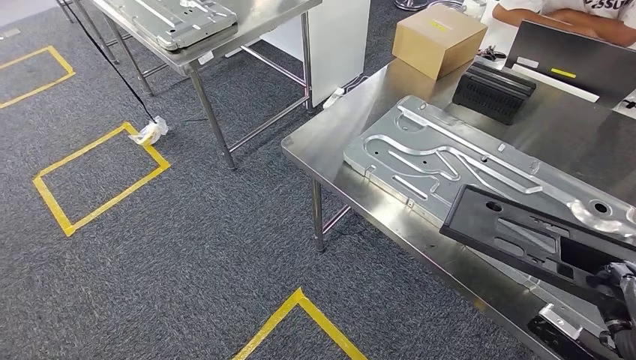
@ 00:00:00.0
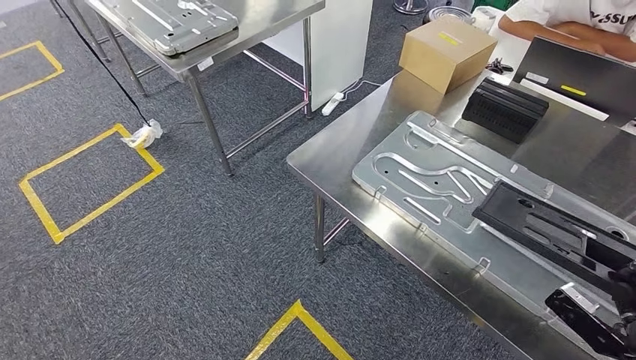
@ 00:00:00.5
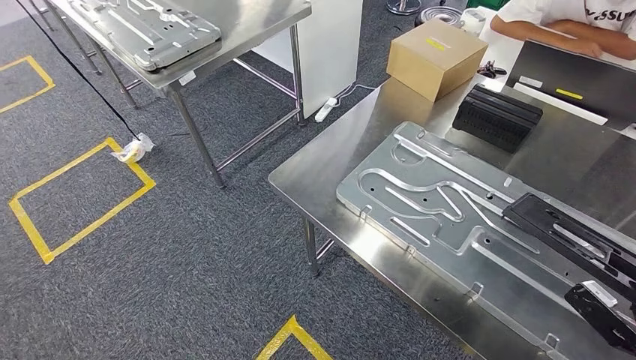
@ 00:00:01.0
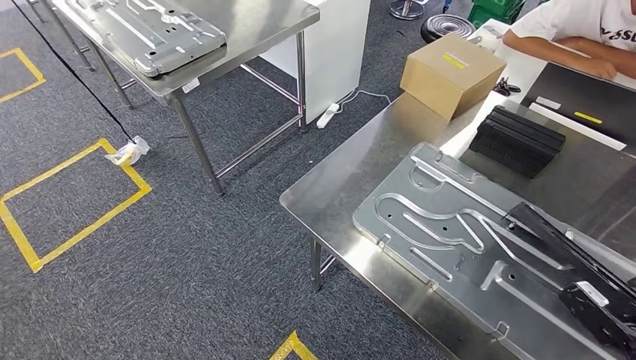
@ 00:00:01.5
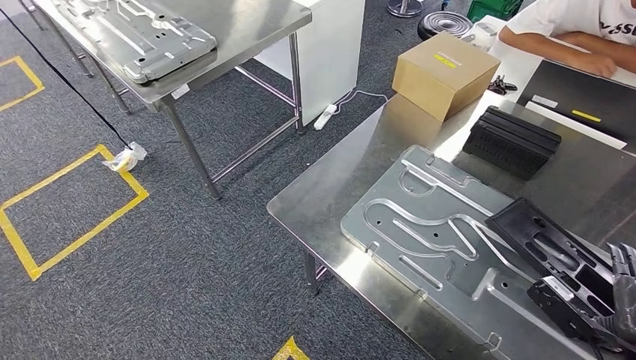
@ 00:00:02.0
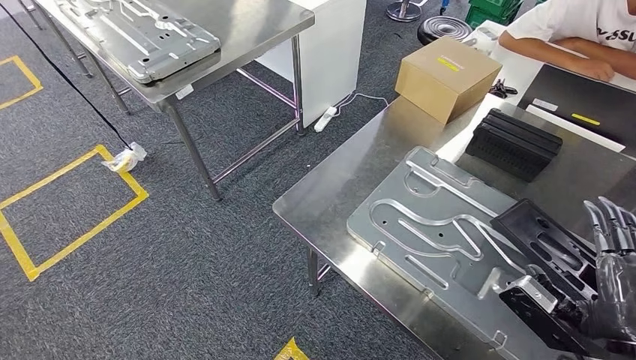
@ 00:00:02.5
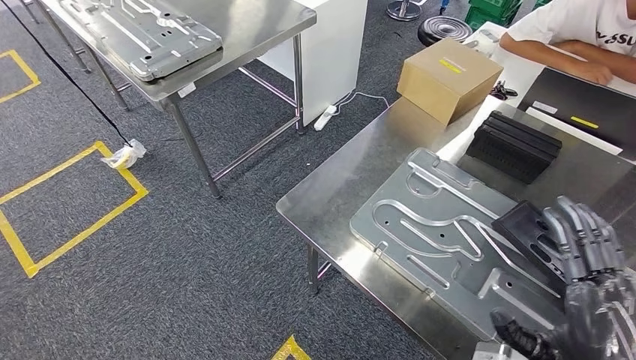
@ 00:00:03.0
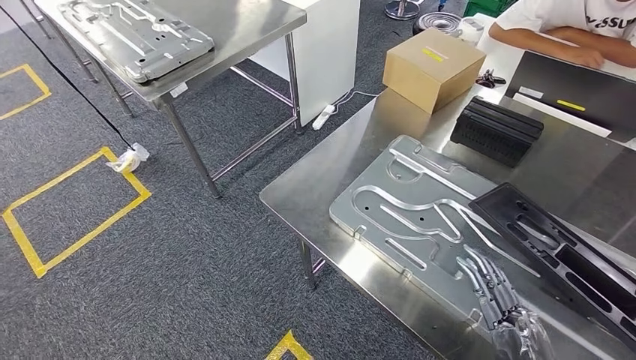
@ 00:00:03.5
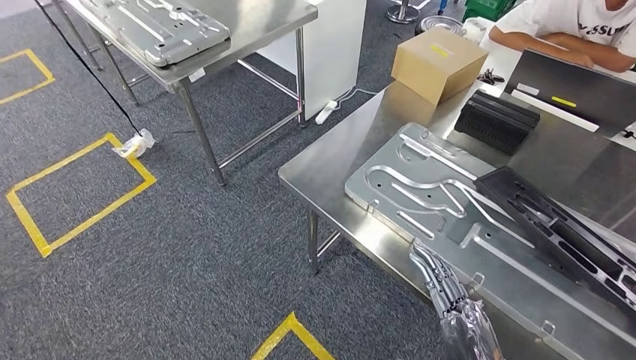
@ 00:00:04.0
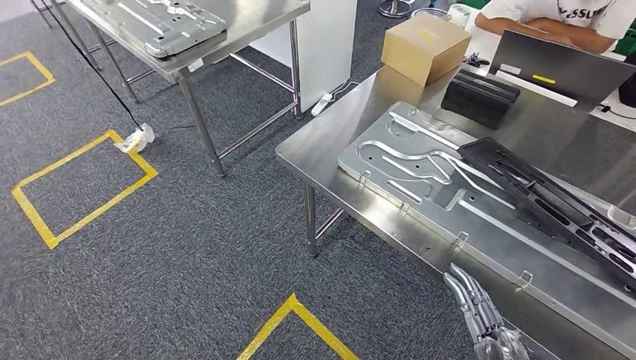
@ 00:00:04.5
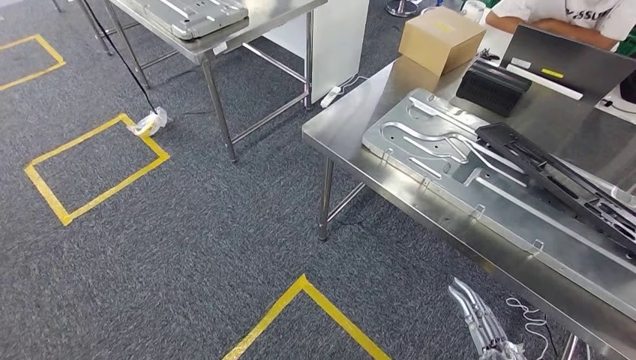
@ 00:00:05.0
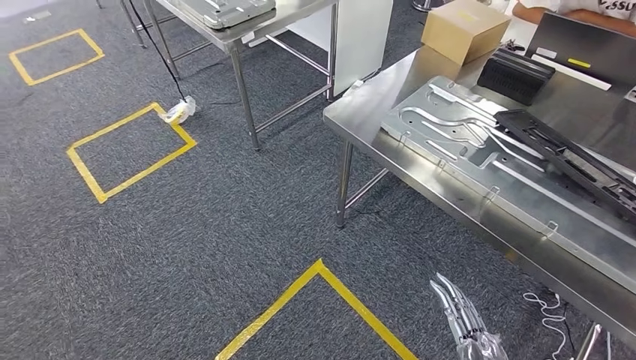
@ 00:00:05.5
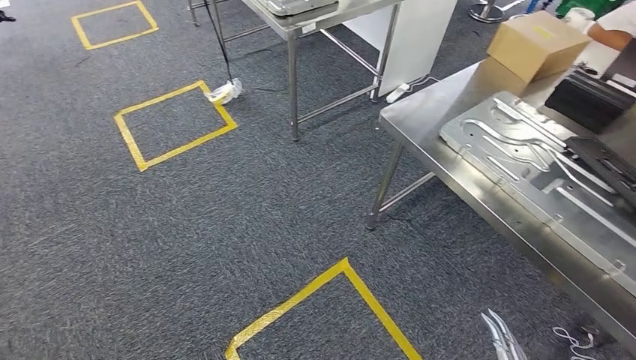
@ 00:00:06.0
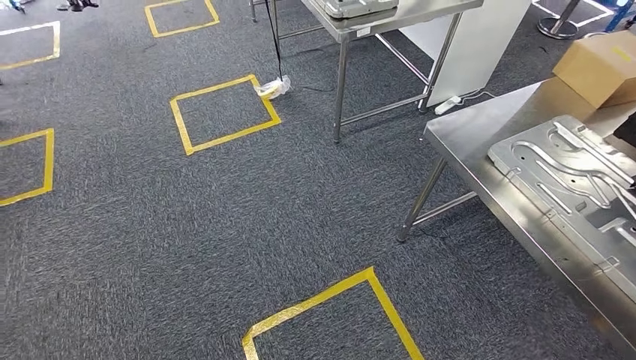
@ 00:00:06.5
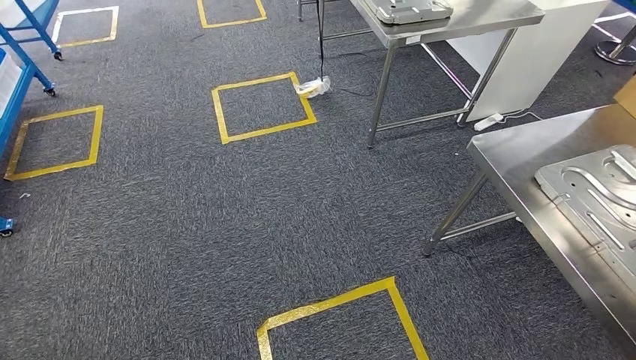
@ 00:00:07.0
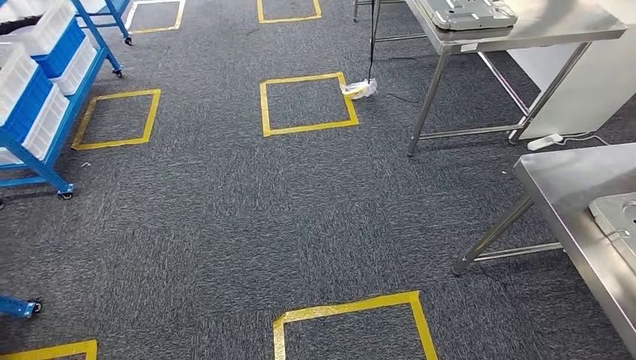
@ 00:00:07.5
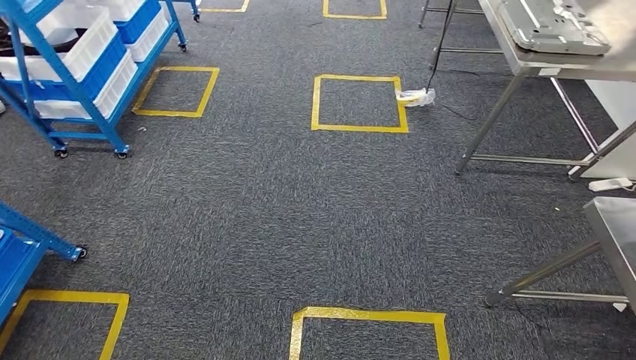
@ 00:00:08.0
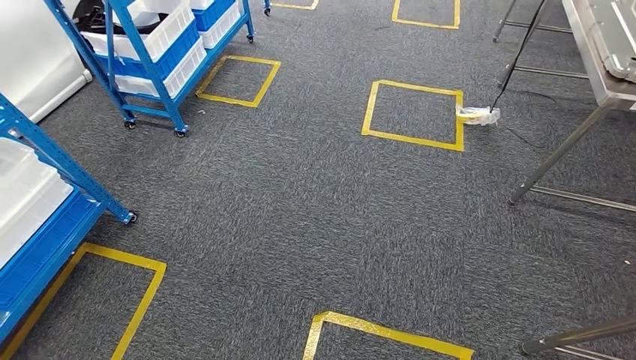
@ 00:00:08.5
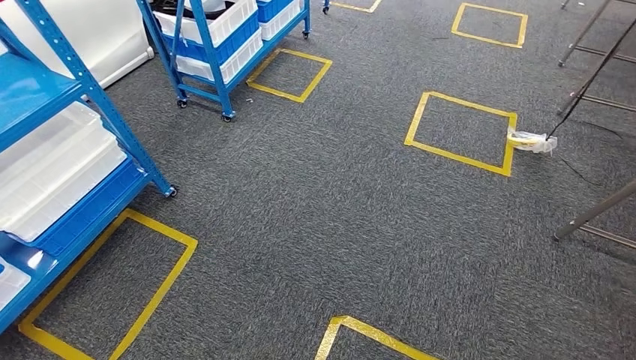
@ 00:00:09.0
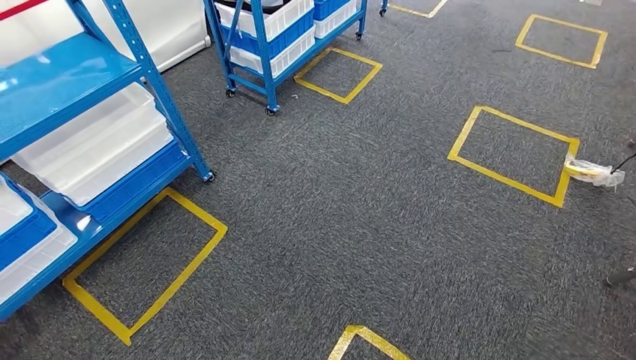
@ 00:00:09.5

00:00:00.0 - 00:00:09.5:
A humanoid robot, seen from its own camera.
Step, 00:00:00.0 - 00:00:03.0: Insert the large material into the corresponding slot on the workbench.

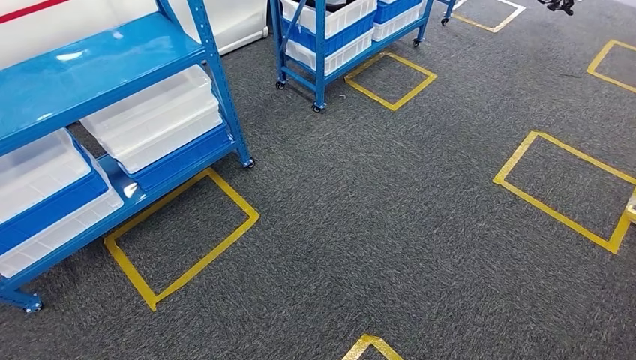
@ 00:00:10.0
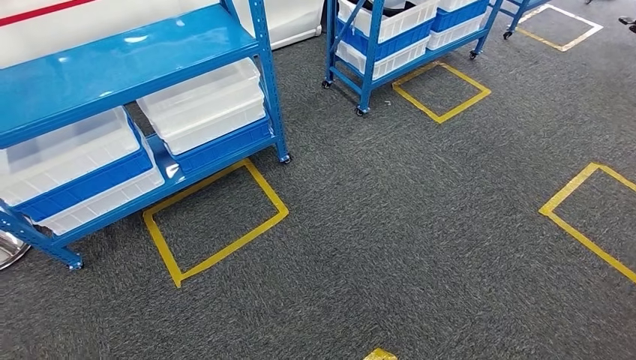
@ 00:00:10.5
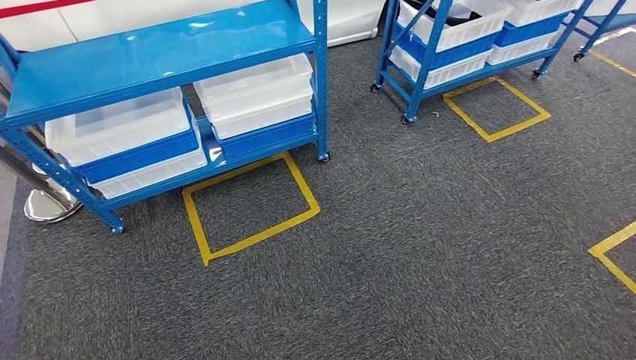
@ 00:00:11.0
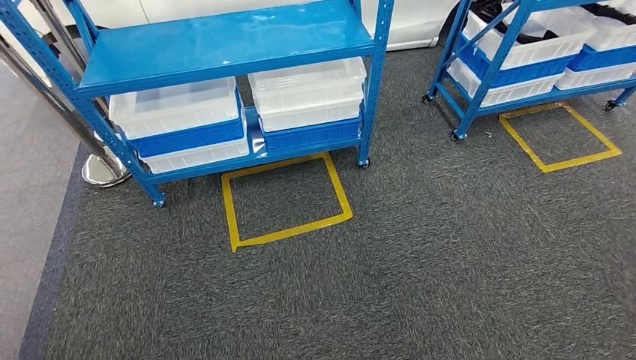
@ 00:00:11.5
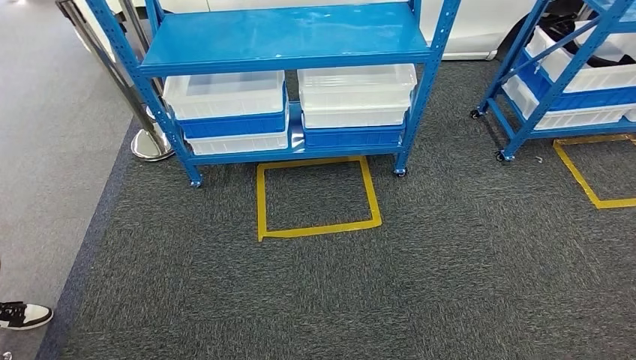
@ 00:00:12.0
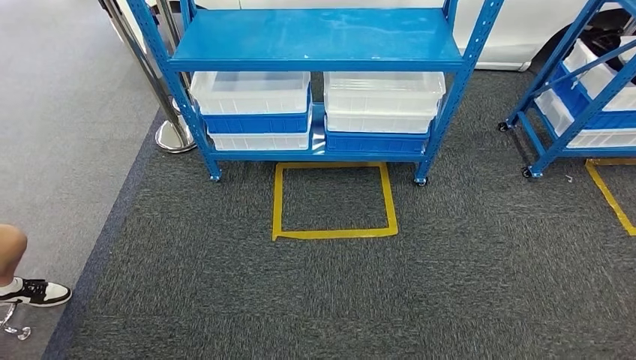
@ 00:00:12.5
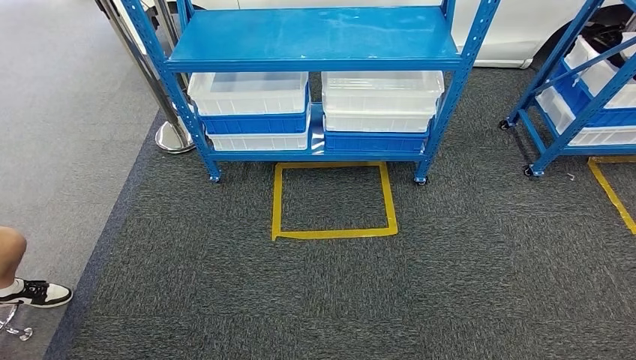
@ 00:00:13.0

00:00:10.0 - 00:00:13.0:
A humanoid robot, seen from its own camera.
Step, 00:00:10.0 - 00:00:13.0: Move to the initial position of the shelf.

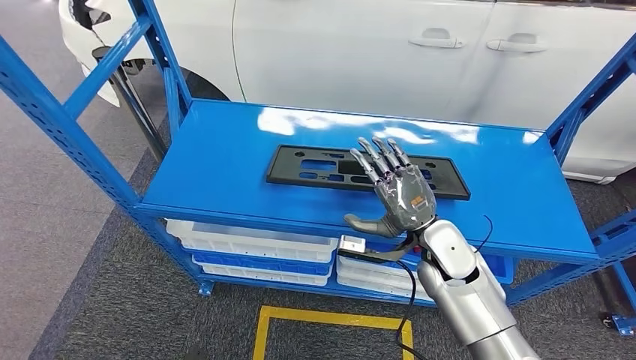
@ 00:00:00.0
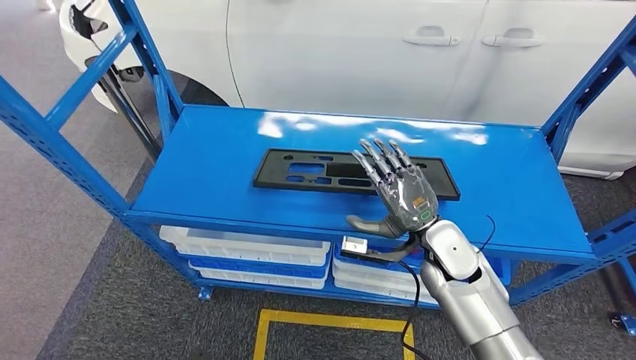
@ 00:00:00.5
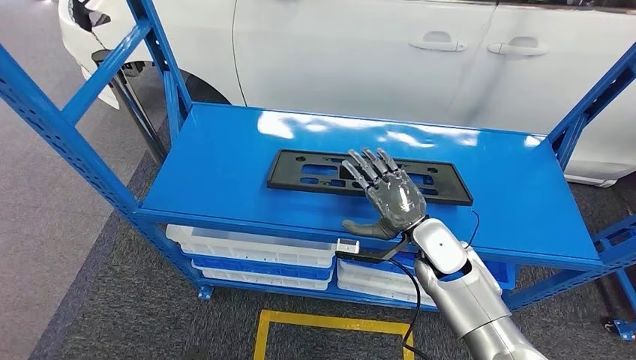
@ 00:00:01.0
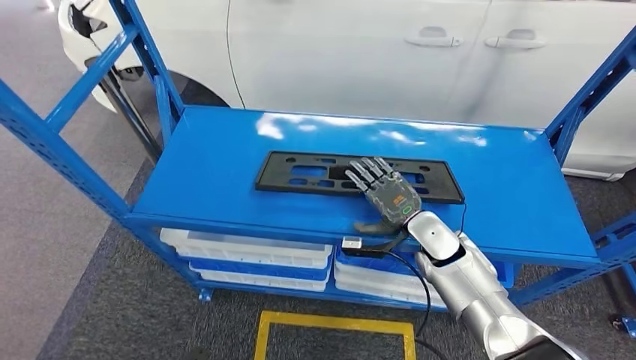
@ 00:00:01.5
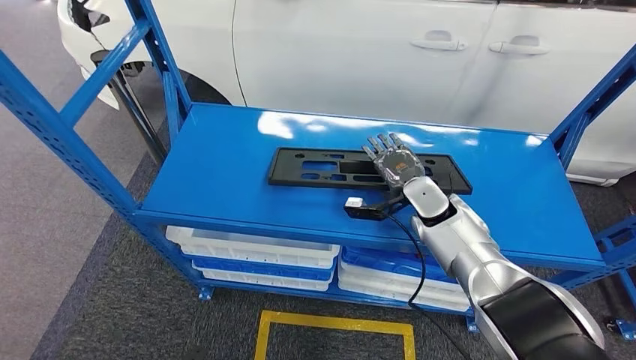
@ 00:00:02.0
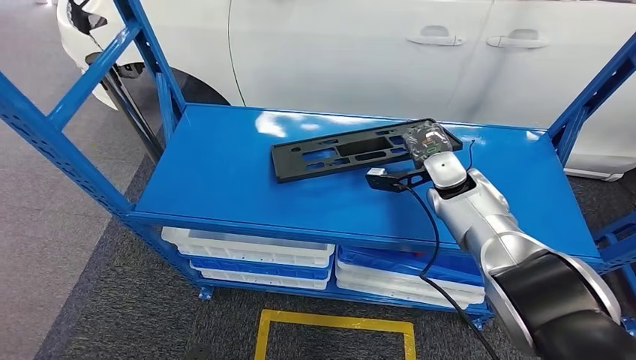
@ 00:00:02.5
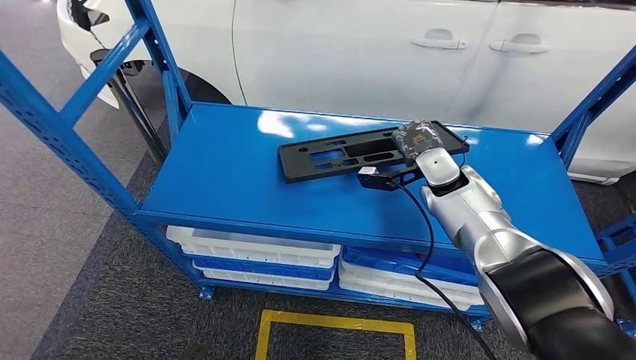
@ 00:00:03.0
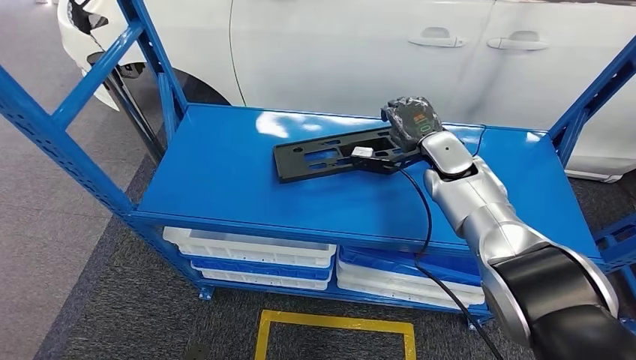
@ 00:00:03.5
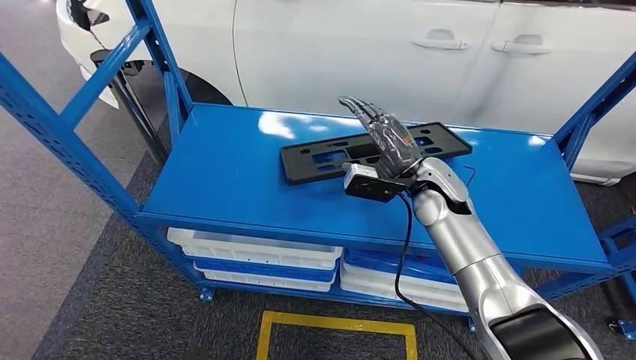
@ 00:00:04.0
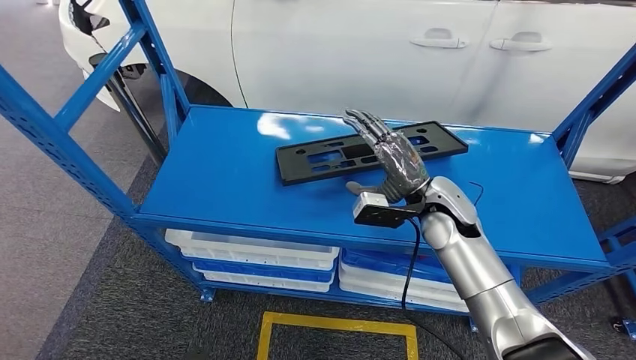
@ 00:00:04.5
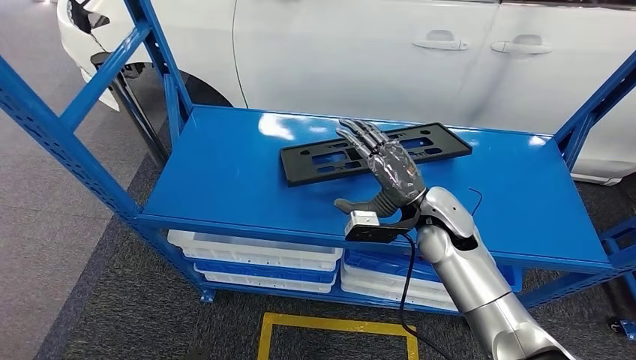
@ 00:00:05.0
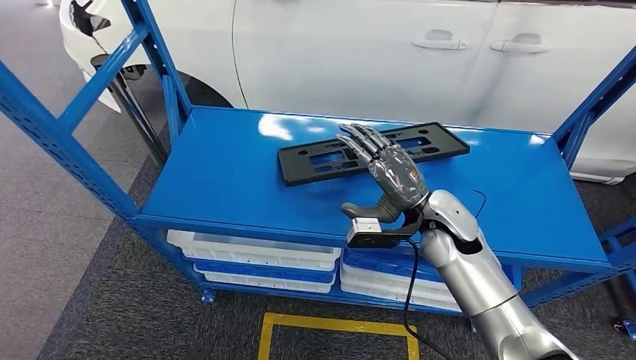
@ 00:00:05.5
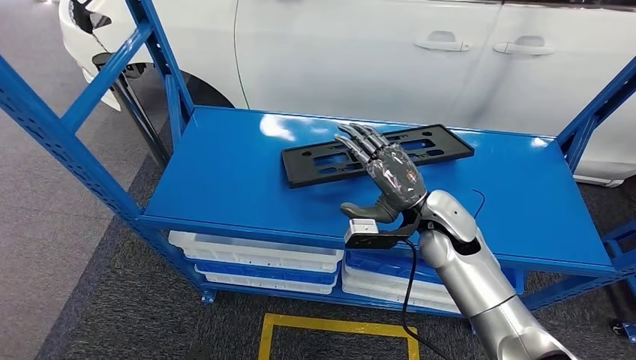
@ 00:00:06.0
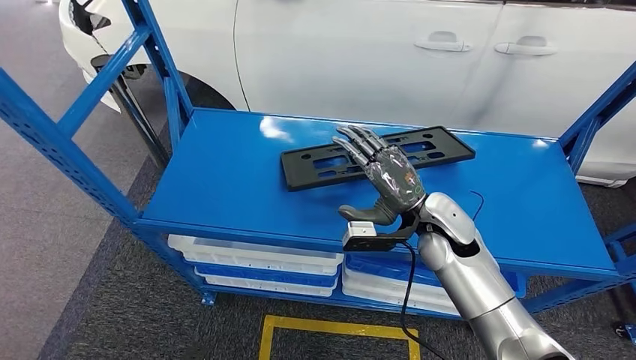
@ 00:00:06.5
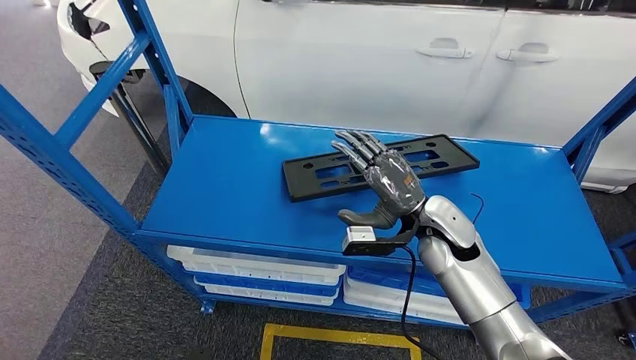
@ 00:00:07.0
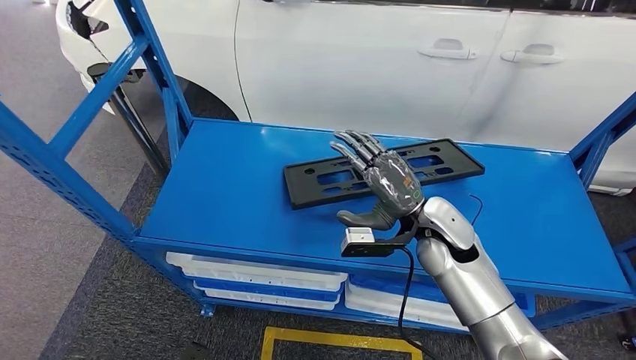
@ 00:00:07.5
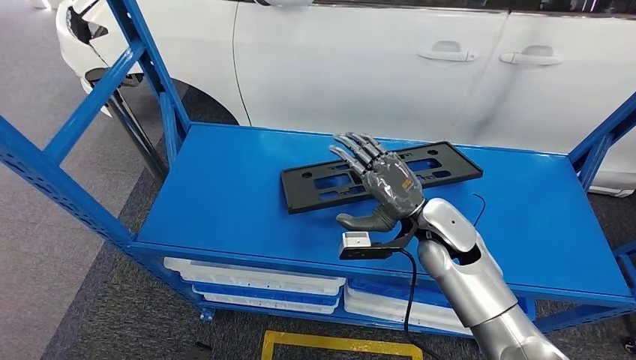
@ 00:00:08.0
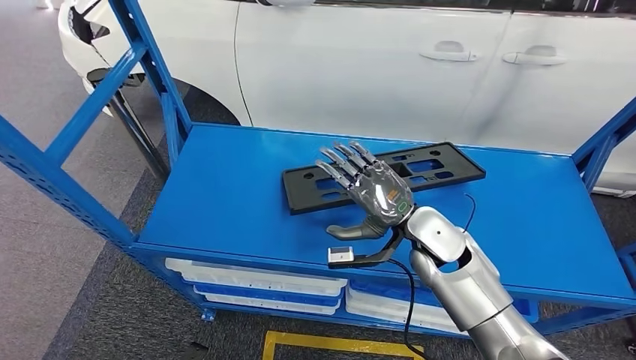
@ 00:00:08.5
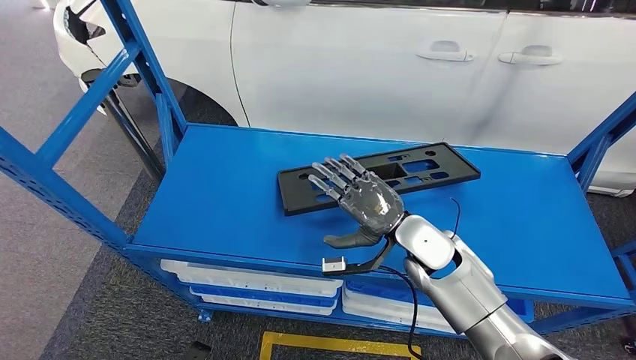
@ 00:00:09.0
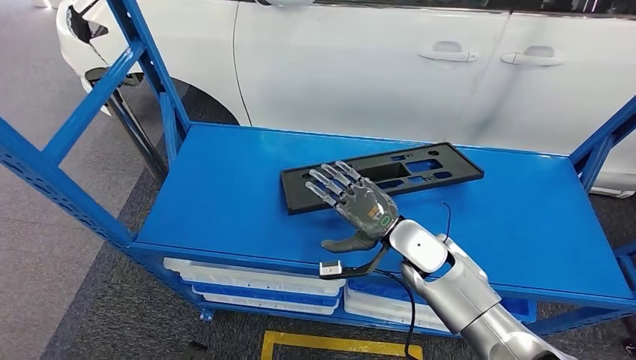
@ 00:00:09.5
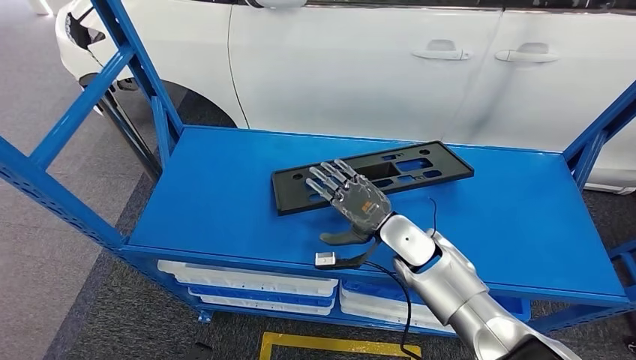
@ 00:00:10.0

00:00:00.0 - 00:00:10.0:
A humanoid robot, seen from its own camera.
00:00:02.0 - 00:00:04.0: The right hand moves upward, some 5 cm.
00:00:04.0 - 00:00:06.0: The right hand heads backward, covering approximately 5 cm.
